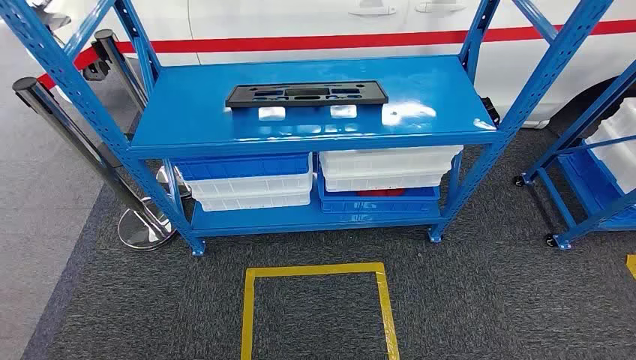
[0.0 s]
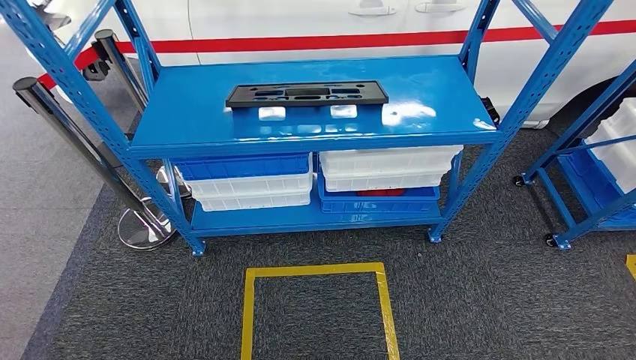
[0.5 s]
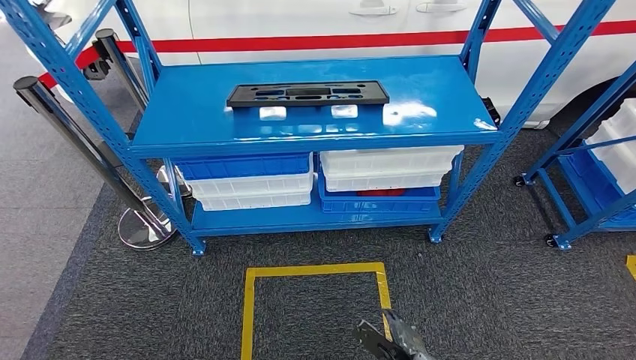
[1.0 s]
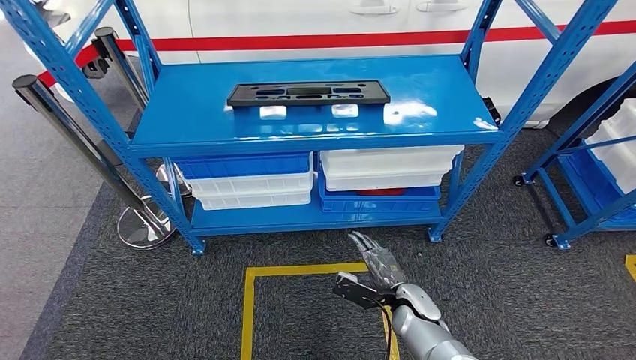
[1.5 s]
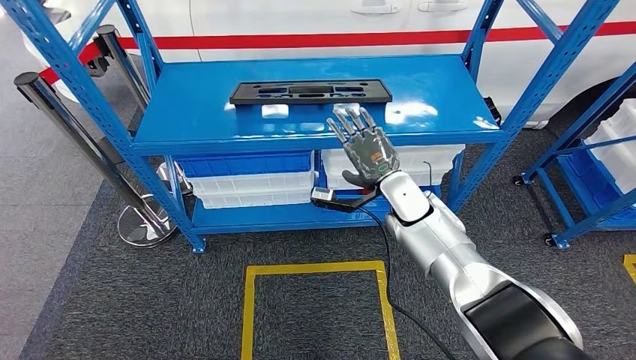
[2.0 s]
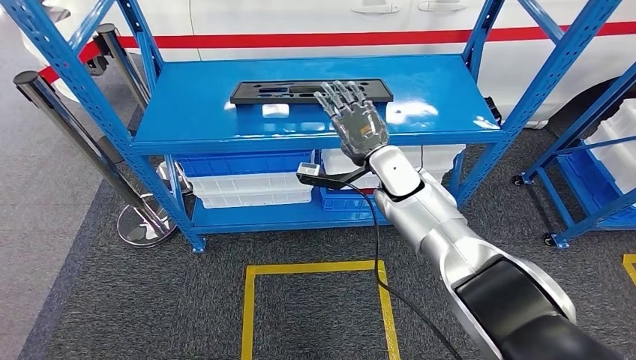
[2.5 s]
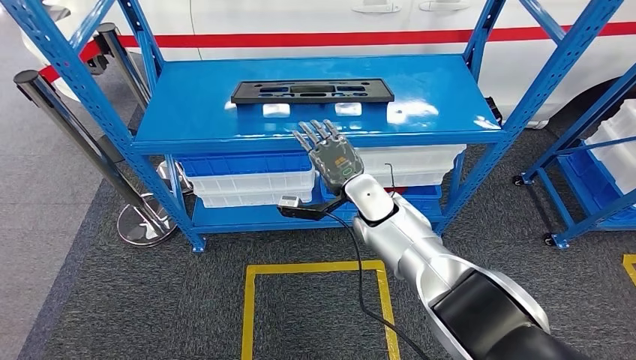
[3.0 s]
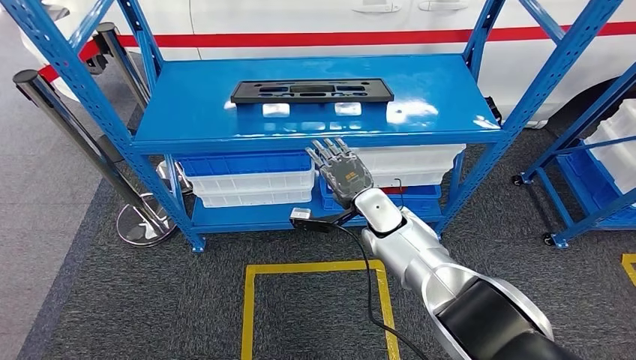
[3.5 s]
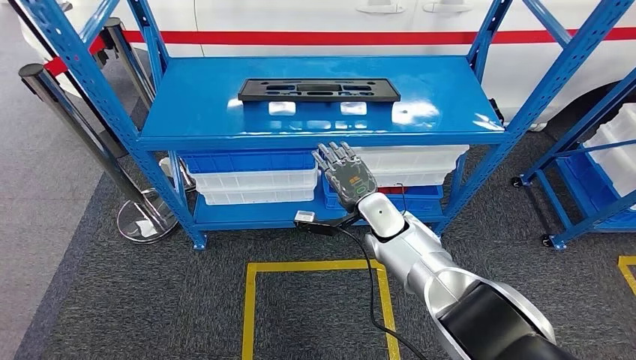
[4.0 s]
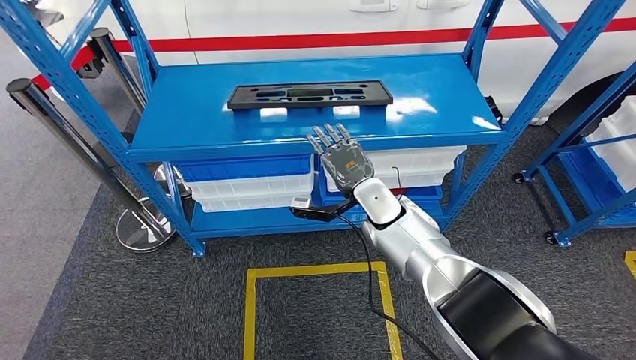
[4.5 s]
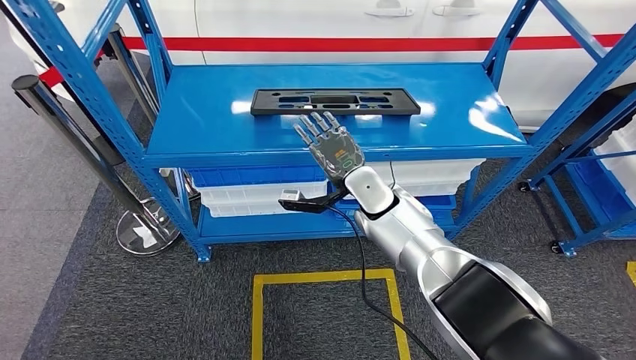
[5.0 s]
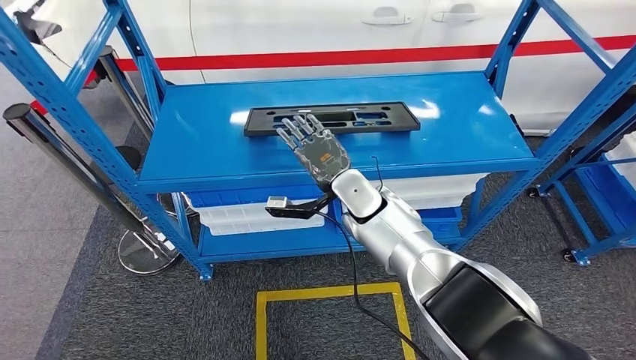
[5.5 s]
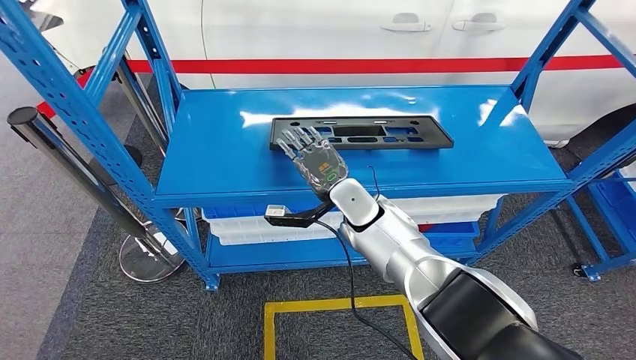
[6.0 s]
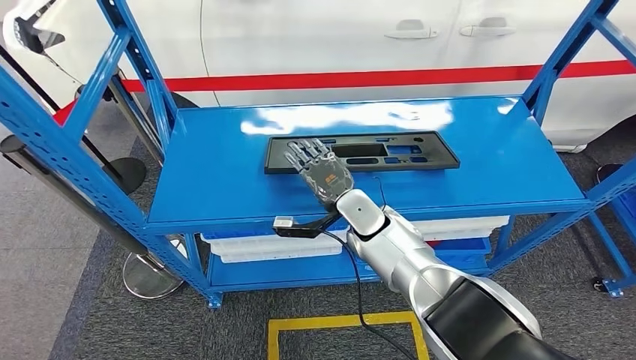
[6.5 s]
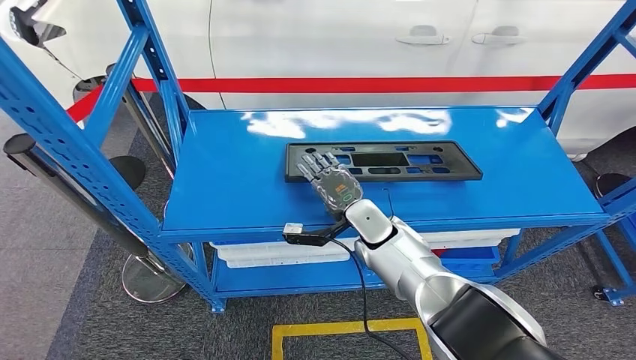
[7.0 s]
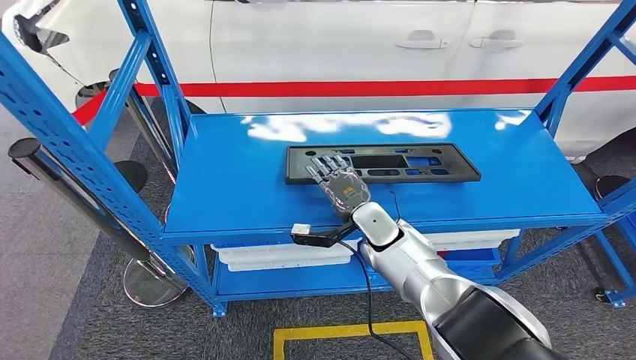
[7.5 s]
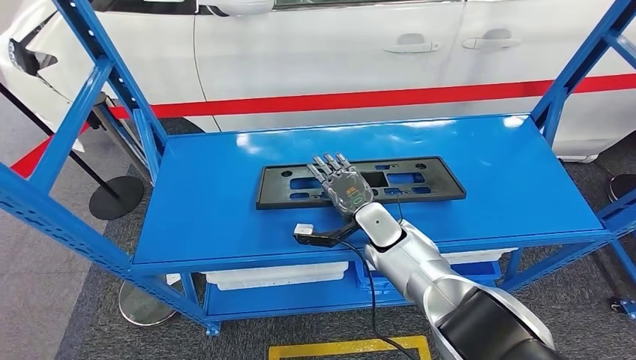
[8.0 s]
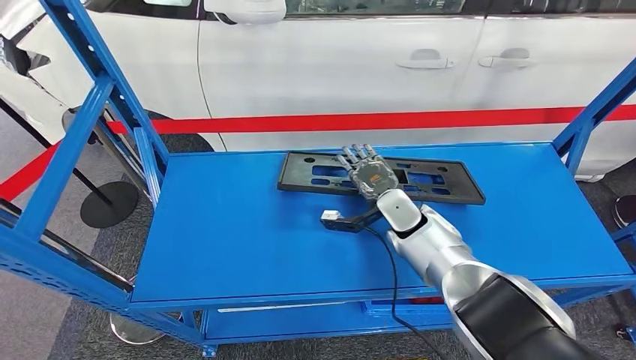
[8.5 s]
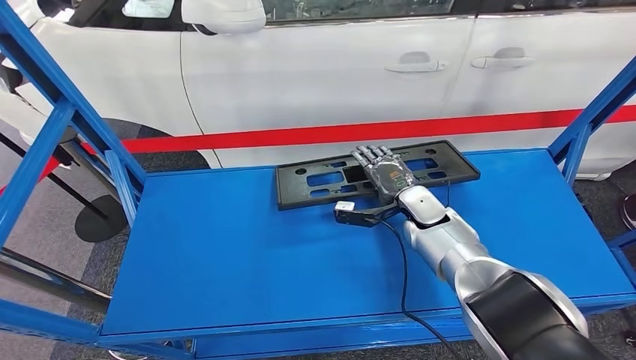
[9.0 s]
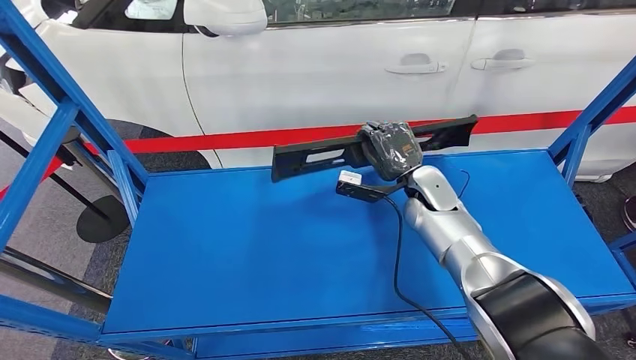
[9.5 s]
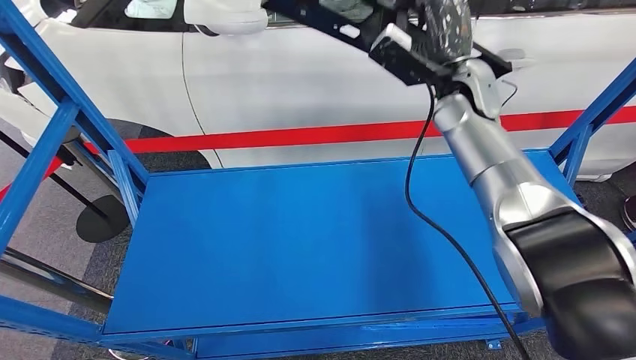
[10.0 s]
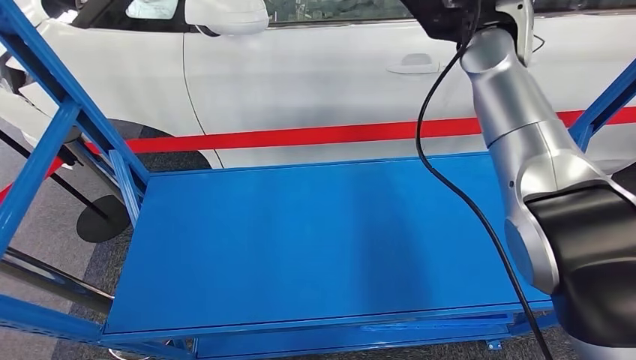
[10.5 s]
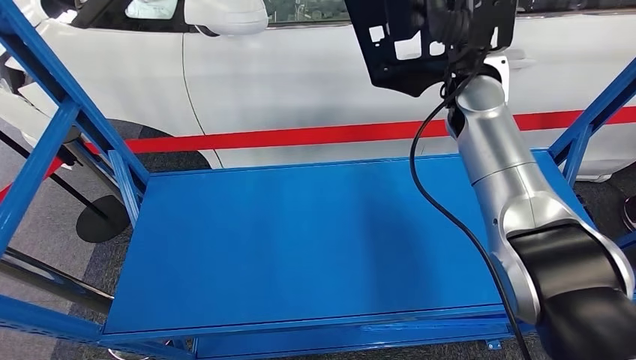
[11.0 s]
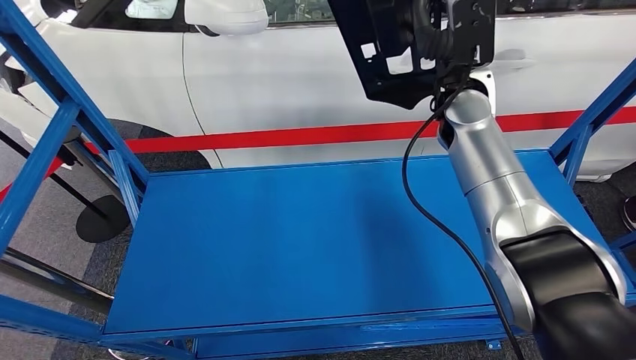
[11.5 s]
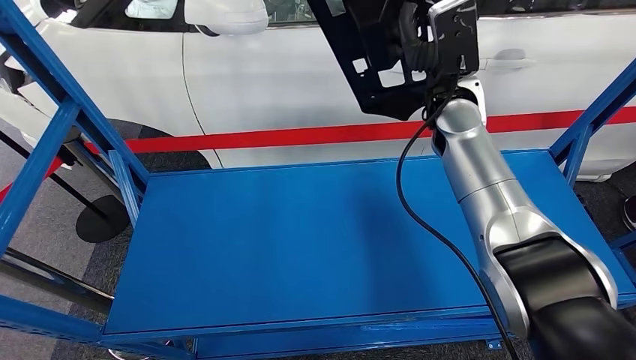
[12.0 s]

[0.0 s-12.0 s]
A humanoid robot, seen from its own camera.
Step, 0.0 to 9.5 s: Pick up the large material from the shelf.

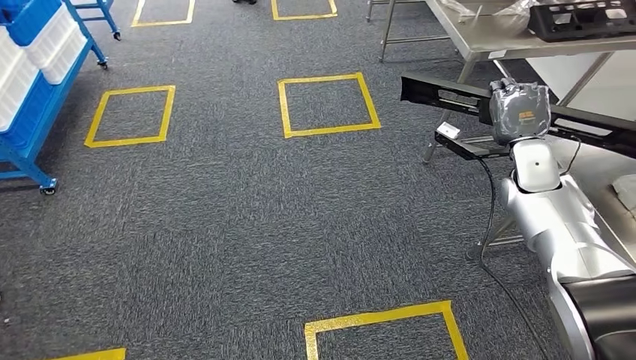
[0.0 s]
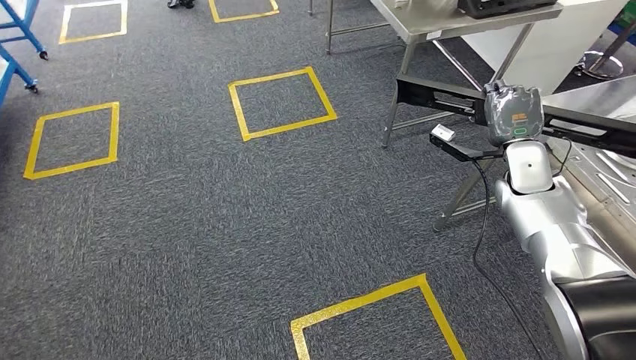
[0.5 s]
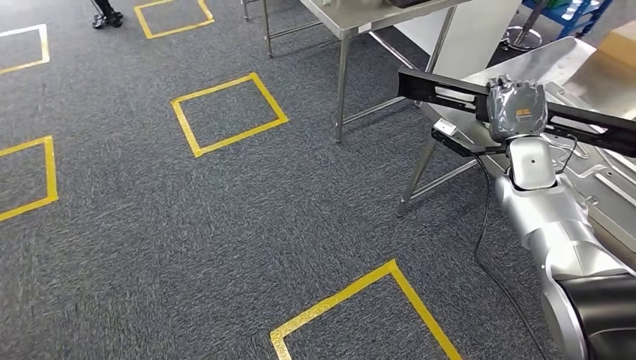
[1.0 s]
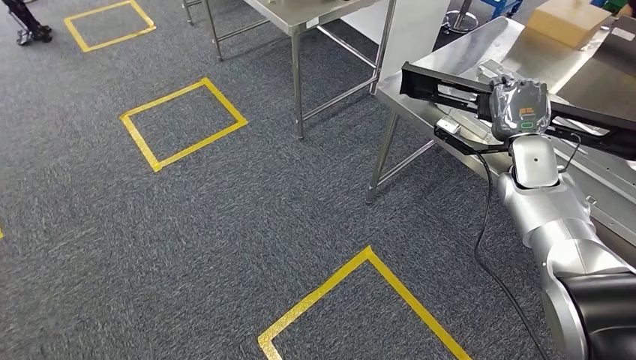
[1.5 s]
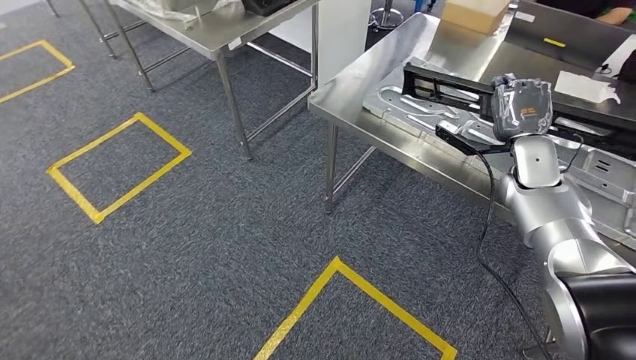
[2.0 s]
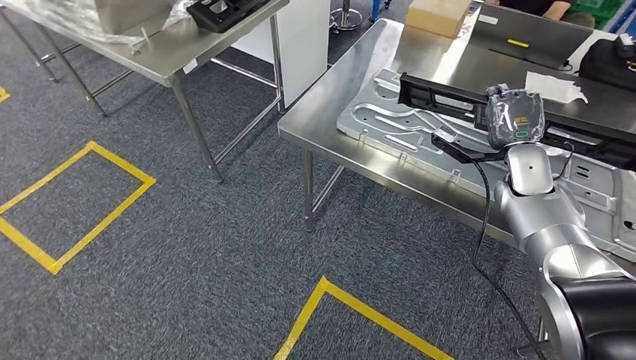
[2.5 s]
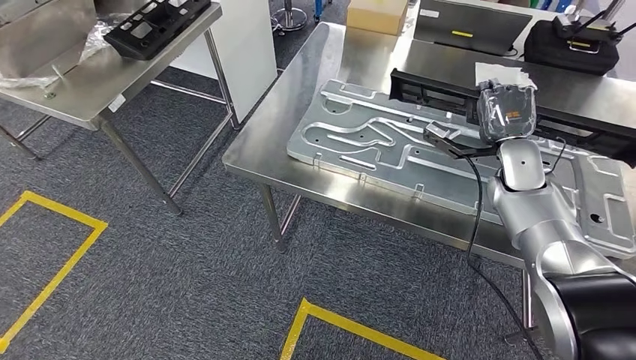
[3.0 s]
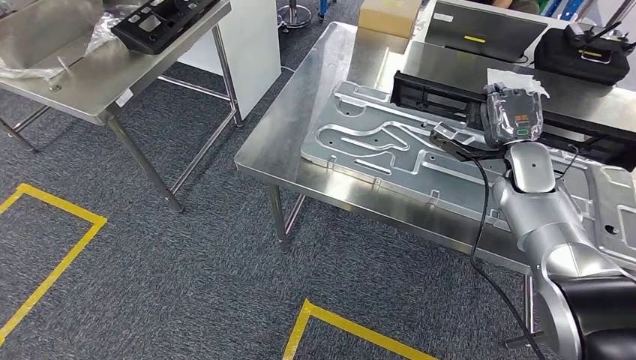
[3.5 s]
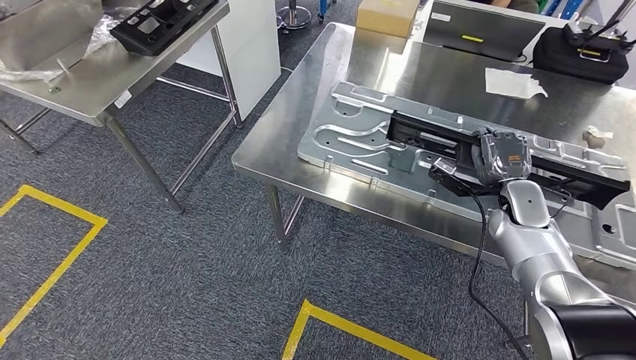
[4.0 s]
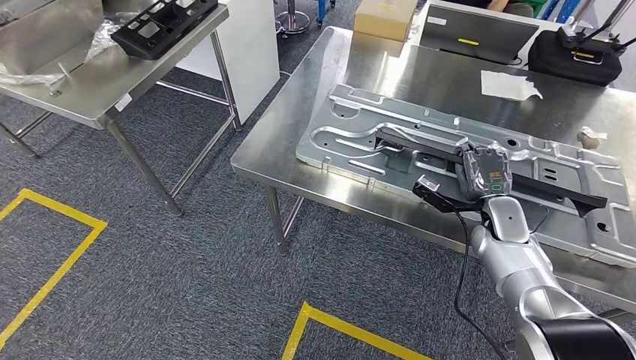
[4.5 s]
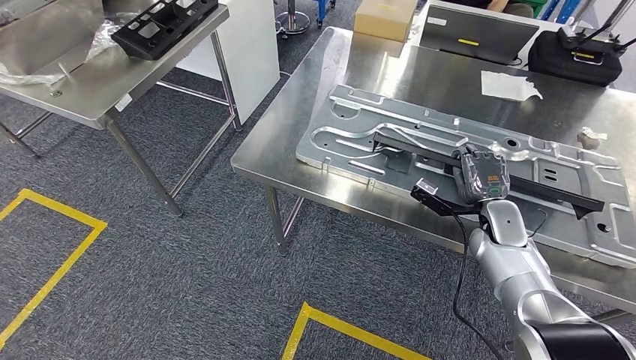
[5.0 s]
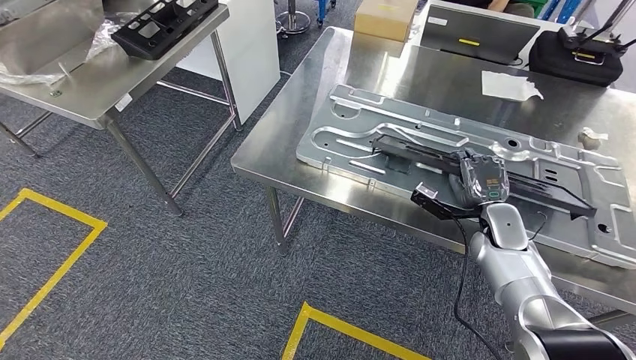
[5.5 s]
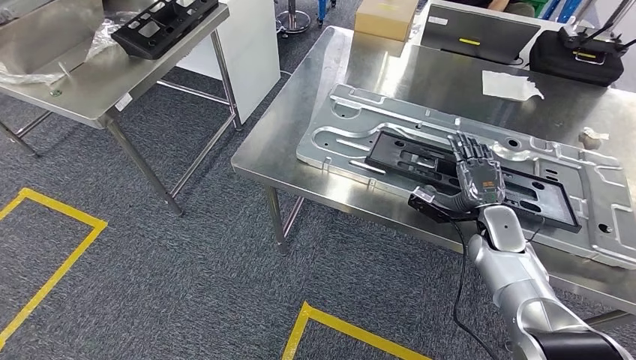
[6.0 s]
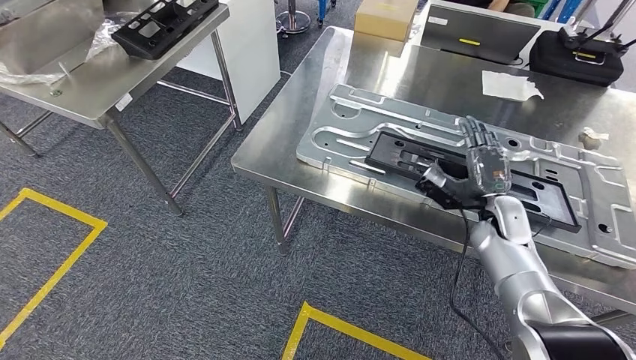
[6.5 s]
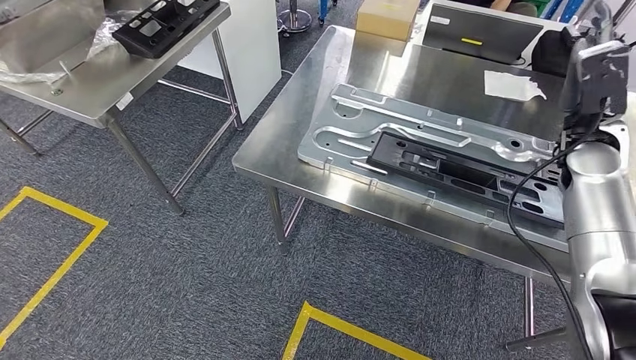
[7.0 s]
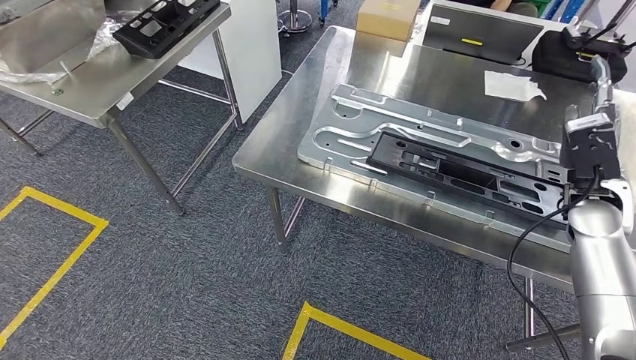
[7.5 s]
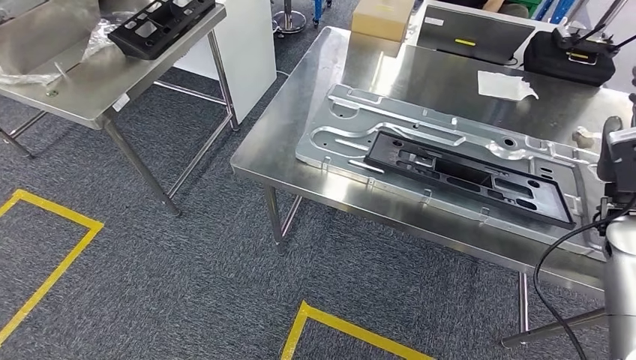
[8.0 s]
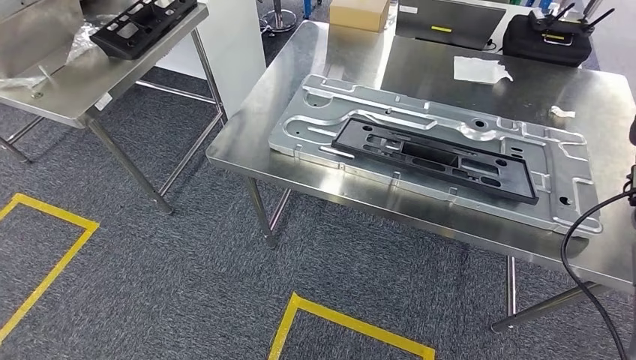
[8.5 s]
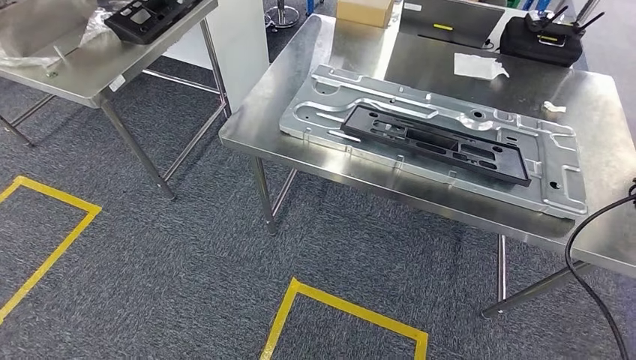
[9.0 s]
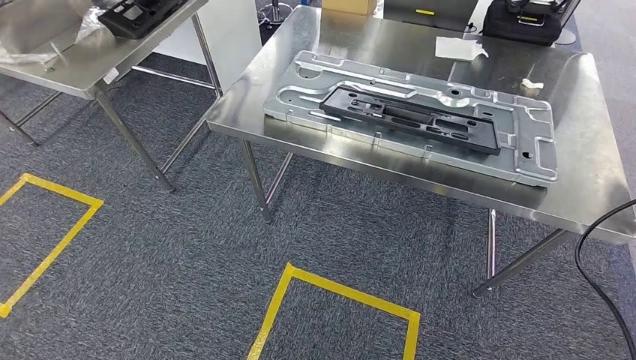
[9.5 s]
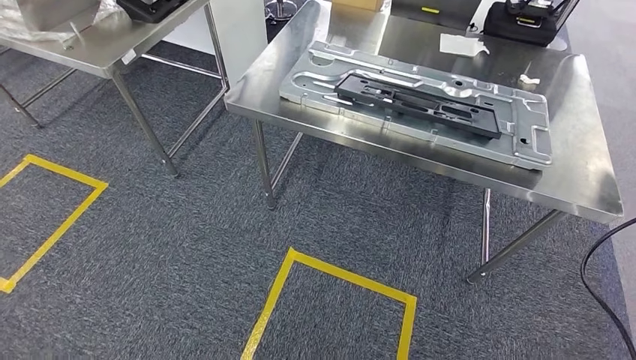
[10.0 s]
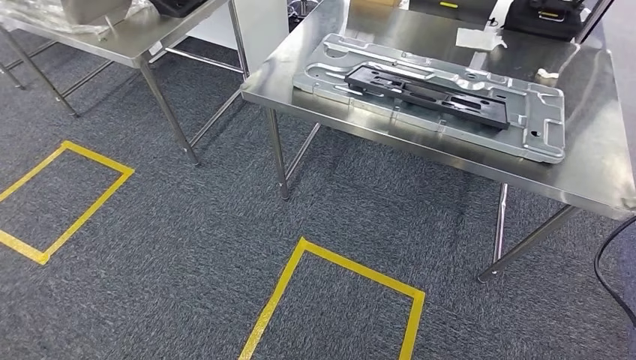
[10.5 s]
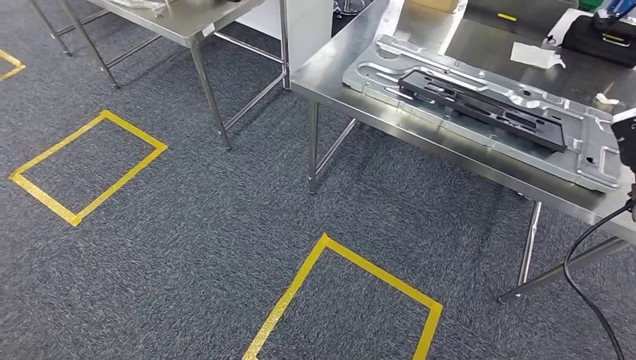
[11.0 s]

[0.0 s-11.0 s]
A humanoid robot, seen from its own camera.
Step, 0.0 to 2.0 s: Move the large material to the workbench.
Step, 4.5 to 9.5 s: Insert the large material into the corresponding slot on the workbench.
5.5 to 7.5 s: The right hand moves upward and to the right, some 15 cm.
